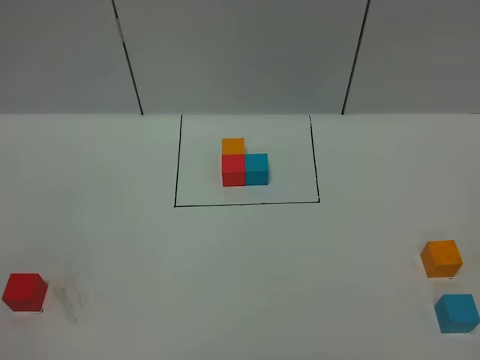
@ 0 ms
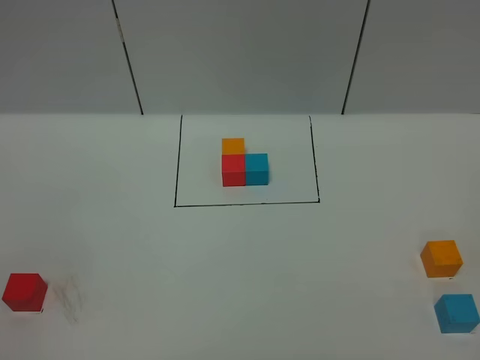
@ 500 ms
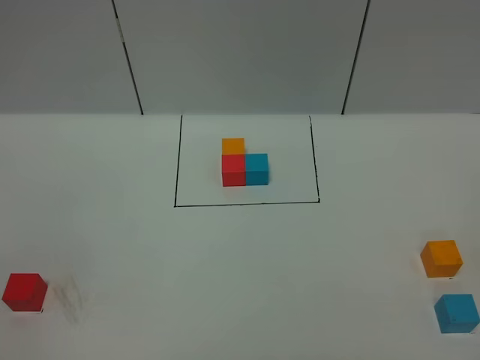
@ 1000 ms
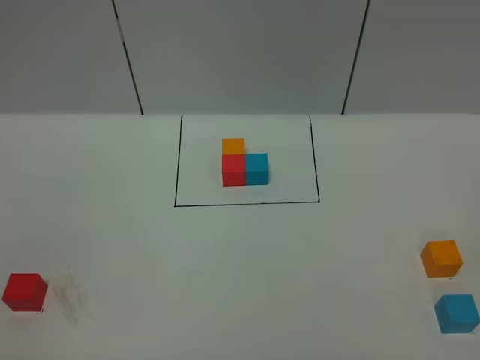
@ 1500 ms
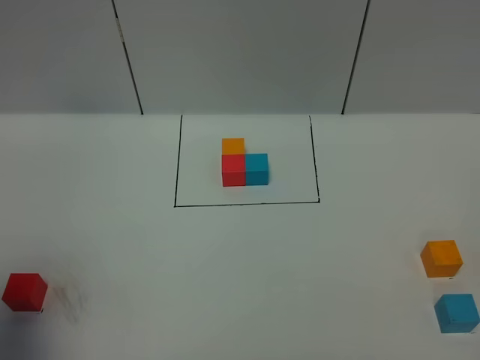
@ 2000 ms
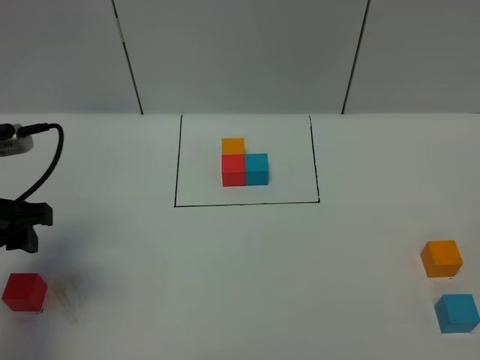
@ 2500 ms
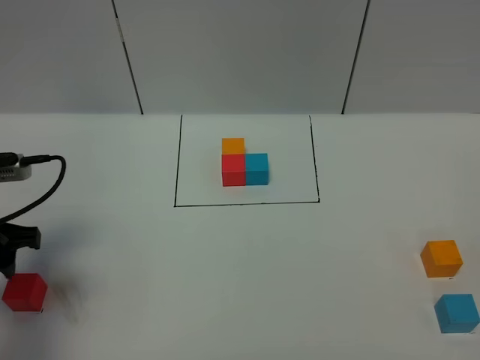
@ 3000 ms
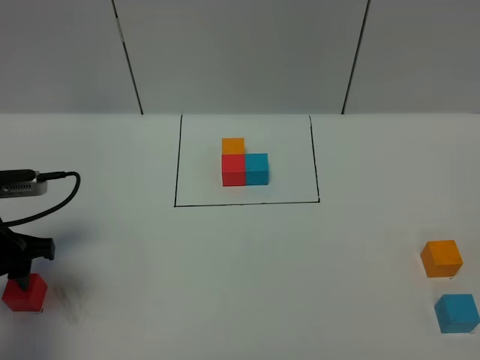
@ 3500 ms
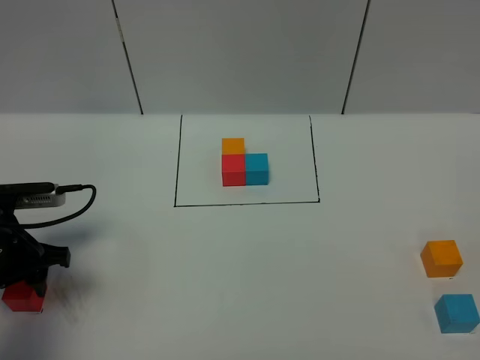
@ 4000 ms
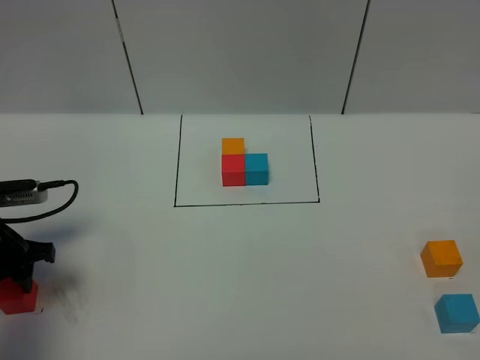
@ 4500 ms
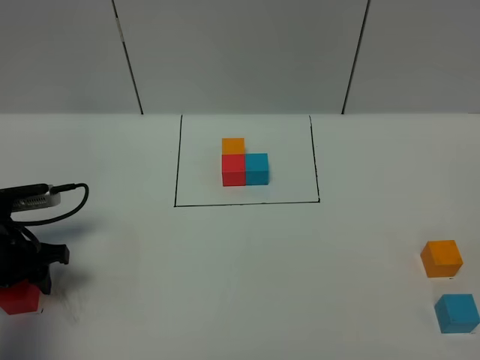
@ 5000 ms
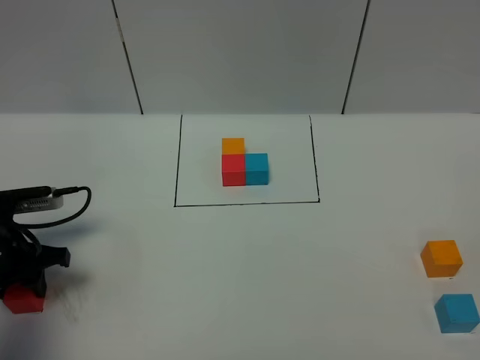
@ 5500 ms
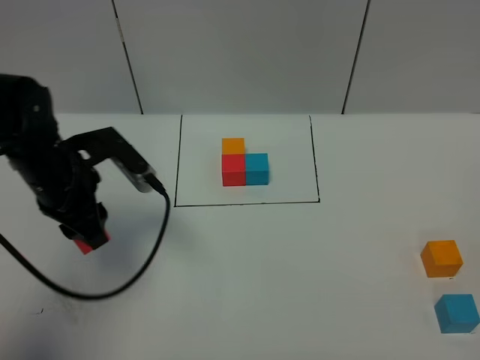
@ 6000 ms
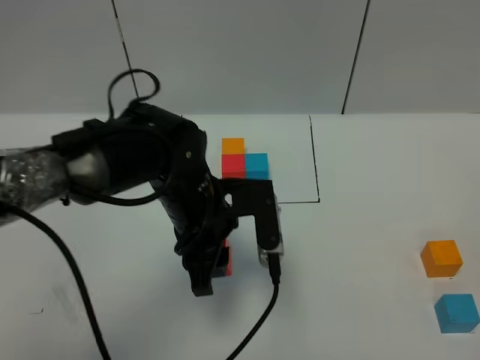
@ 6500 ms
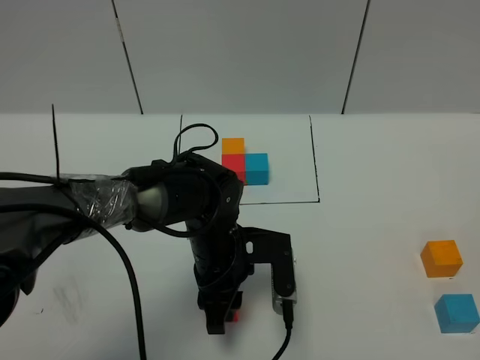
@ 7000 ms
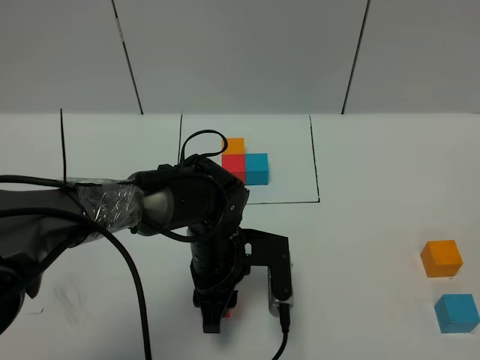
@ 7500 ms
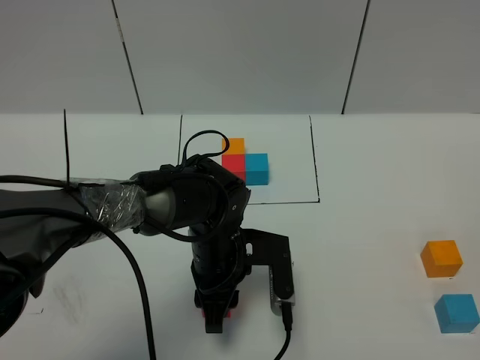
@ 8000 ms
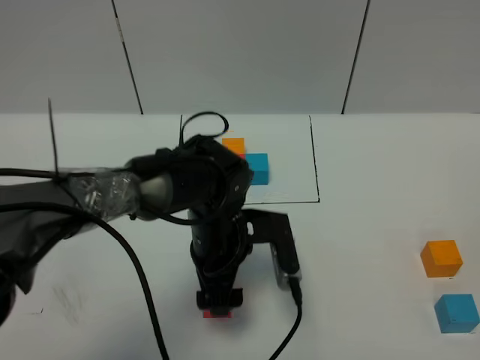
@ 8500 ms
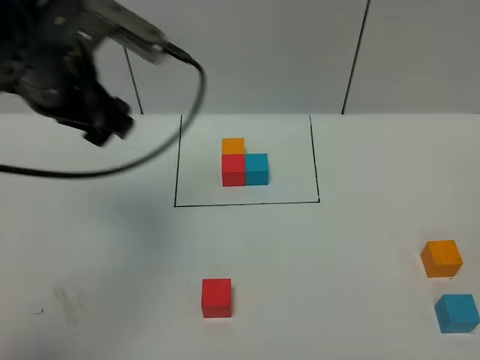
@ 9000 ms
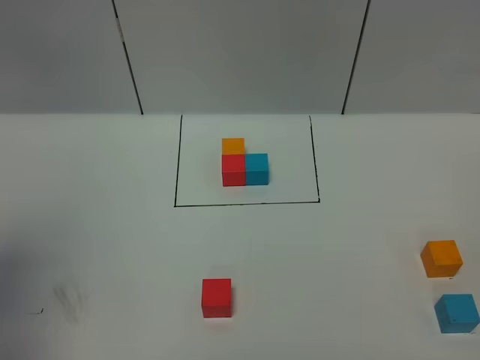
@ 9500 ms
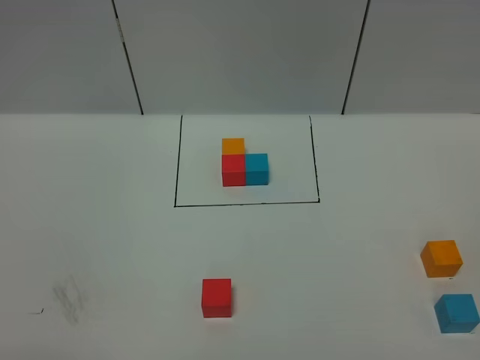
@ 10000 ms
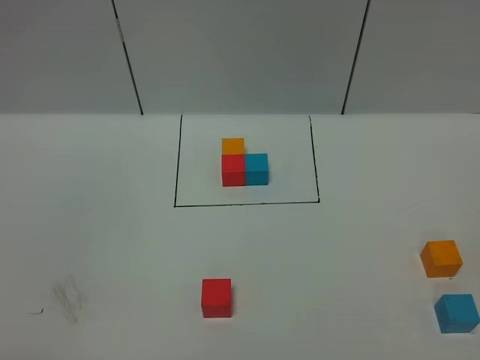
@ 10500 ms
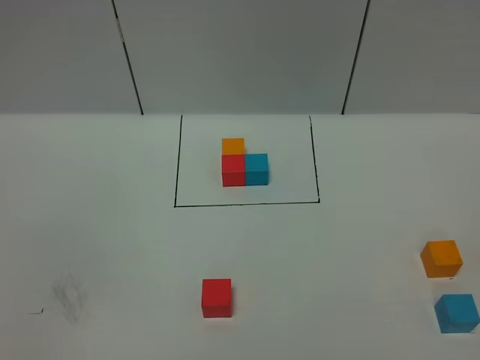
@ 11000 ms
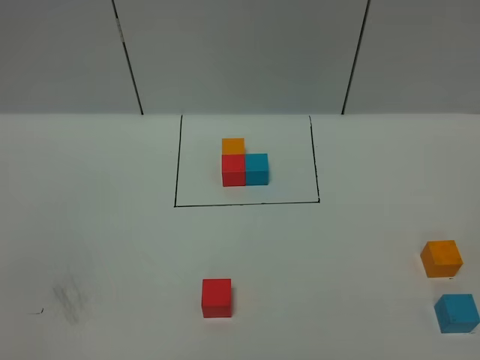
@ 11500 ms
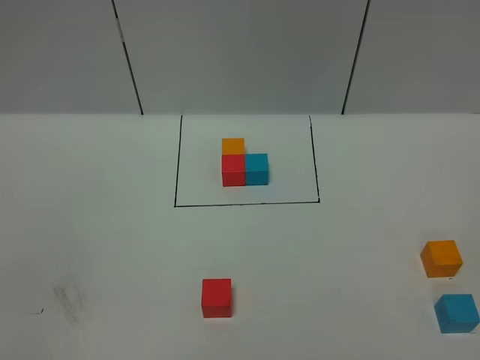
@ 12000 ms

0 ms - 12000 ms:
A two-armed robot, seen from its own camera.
Task of the whole recording: According to the building block template in front, assemble the scattered blocks together.
Step, 0 ms - 8000 ms: Put the red cube in the center of the table.
0 ms - 2000 ms: The left gripper shifts approximately 15 cm forward.
2000 ms - 4000 ms: The left gripper moves downward and forward, about 25 cm.
4000 ms - 6000 ms: The left gripper moves to the right, upward and forward, roughly 10 cm, and closes its fingers.
6000 ms - 8000 ms: The left gripper goes some 20 cm to the right and downward.
8000 ms - 10000 ms: The left gripper moves upward, backward and to the left, roughly 50 cm, and opens up.

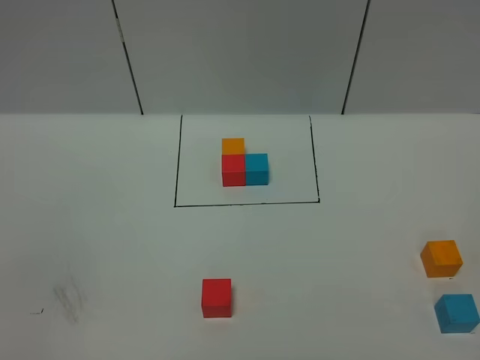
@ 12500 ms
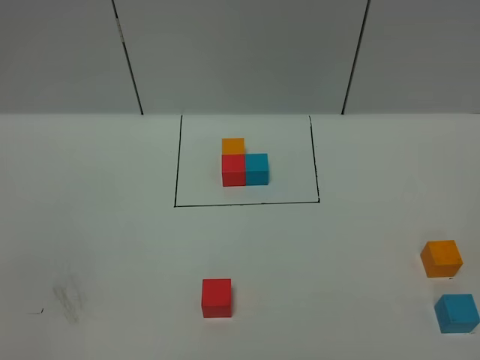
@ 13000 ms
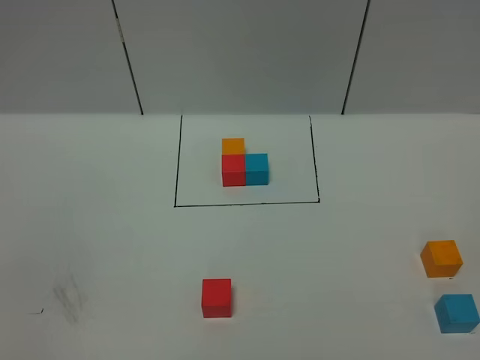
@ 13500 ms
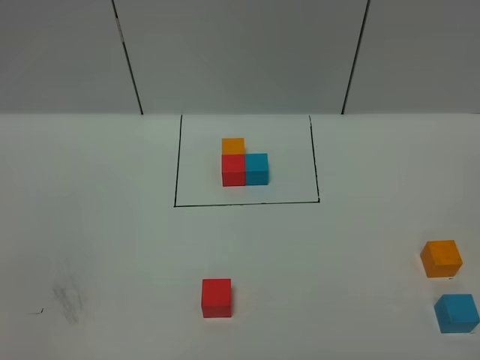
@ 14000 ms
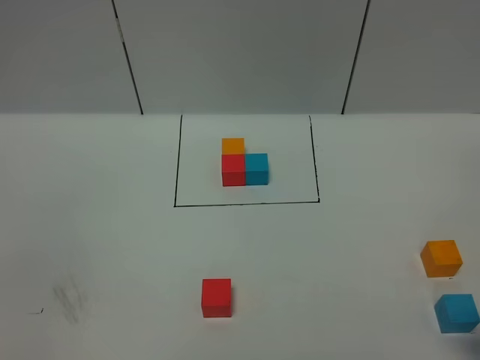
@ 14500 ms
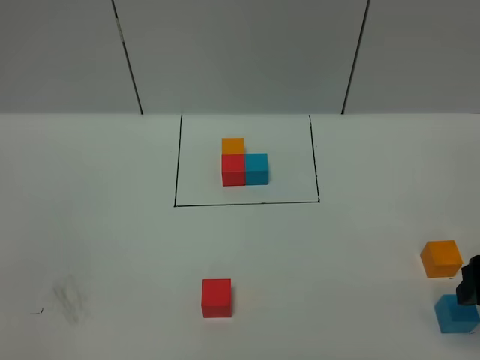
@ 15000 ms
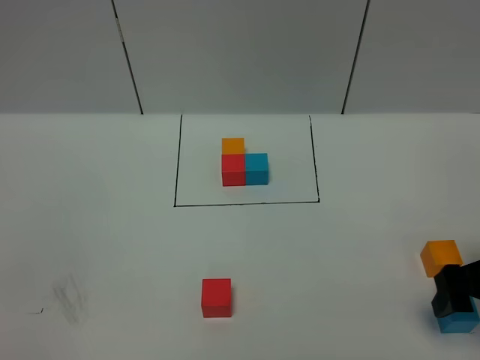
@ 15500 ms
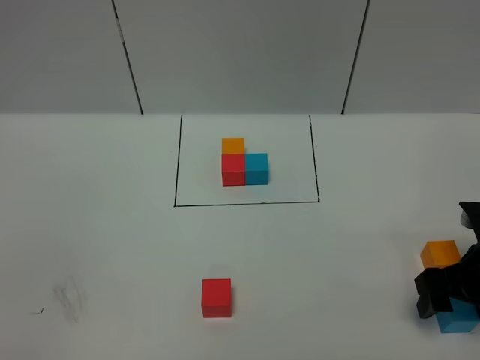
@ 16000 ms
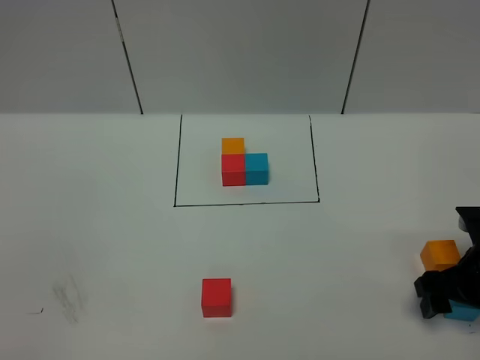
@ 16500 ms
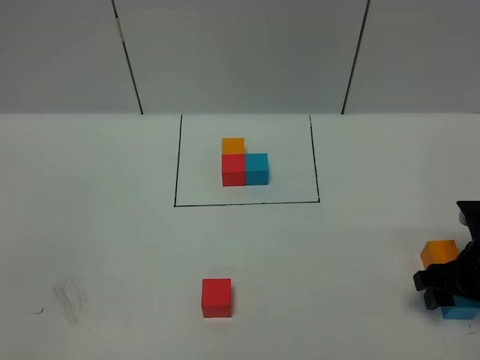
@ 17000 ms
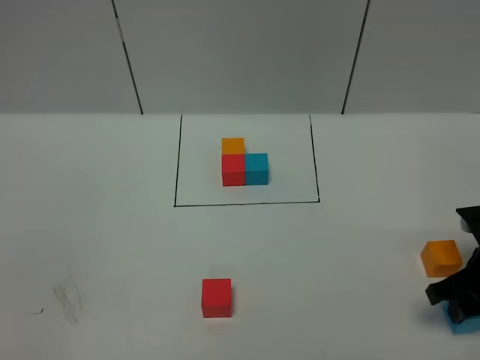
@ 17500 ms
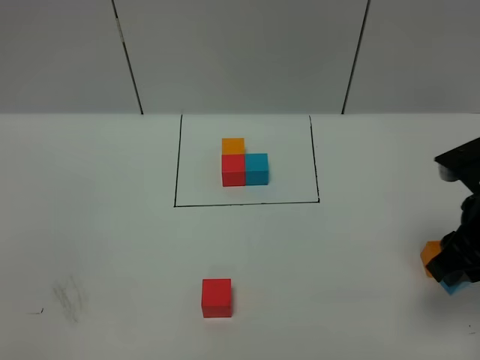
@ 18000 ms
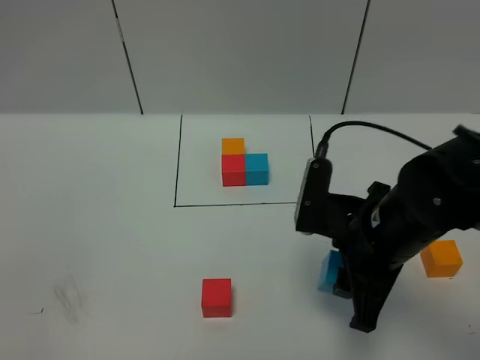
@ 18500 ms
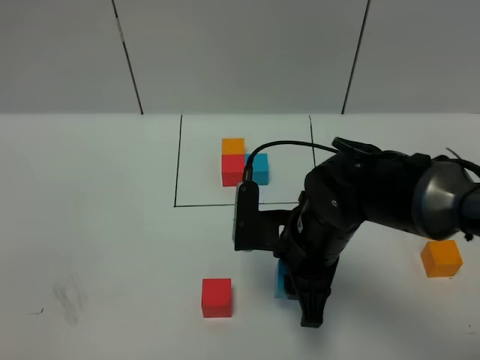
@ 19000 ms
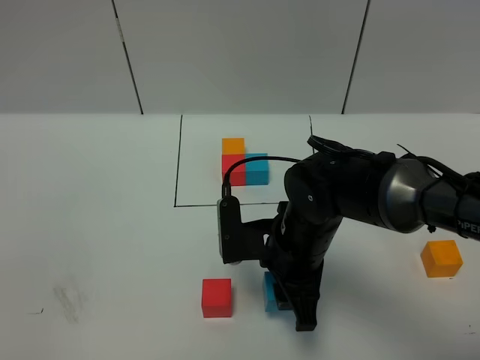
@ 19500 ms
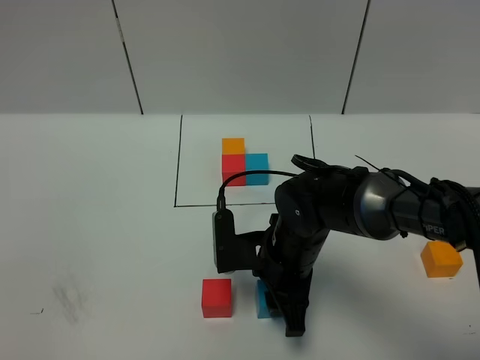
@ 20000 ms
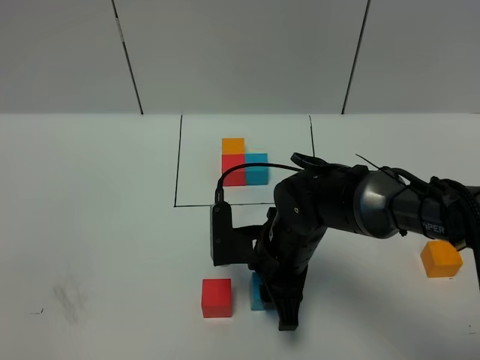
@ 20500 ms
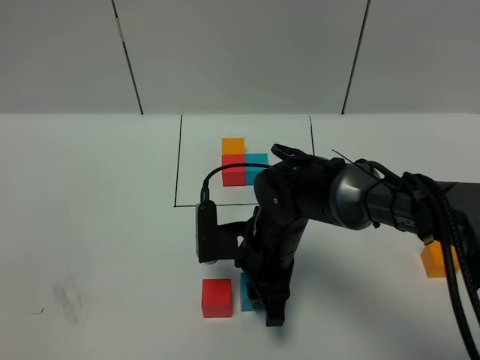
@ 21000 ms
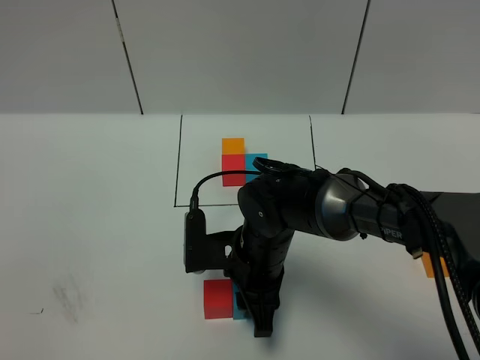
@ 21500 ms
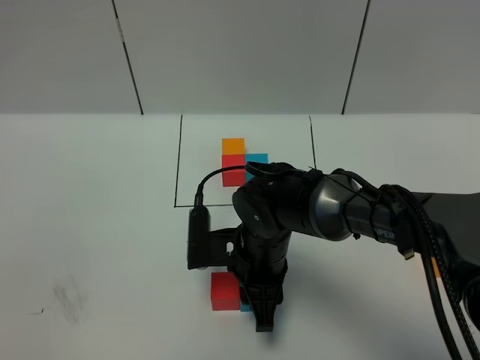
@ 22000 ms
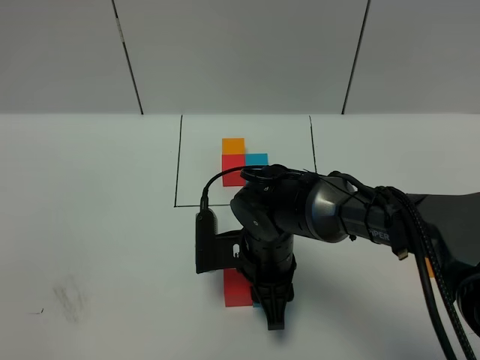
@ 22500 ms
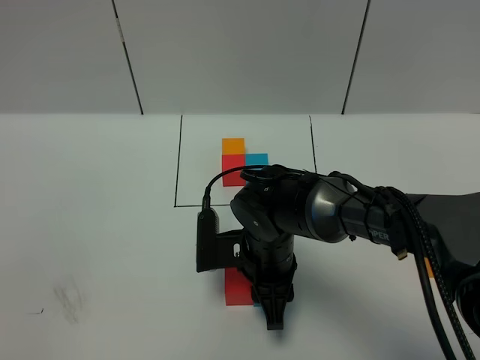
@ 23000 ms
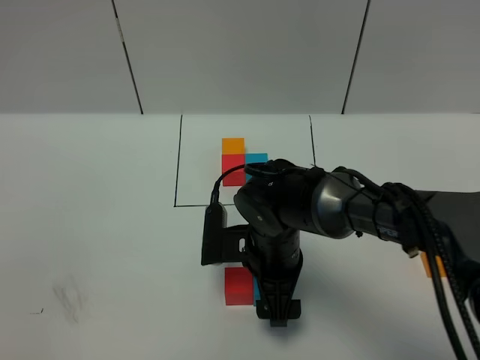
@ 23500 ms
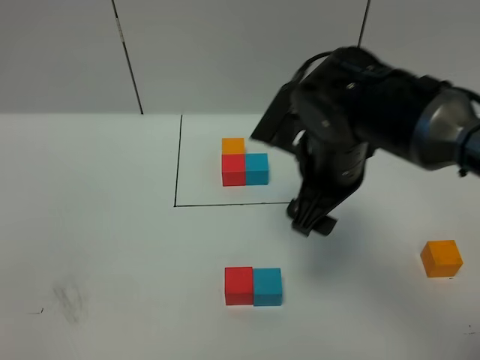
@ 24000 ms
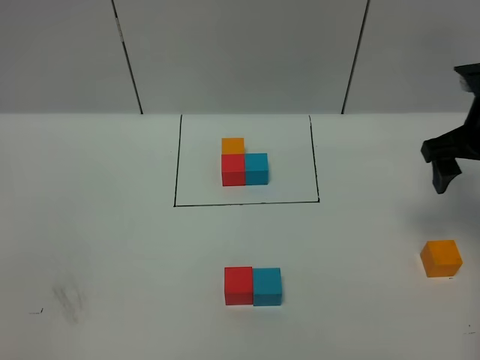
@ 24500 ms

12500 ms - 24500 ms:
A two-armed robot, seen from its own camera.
Task of the whole recording: According to the building block template in front, assemble the scattered blocks together.
Step, 12500 ms - 23500 ms: Put the blue cube on the right of the red cube.
14500 ms - 16500 ms: The right gripper heads forward and downward, covering some 15 cm.
16500 ms - 18500 ms: The right gripper is displaced to the left and upward by about 20 cm, and closes.
18500 ms - 20500 ms: The right gripper travels downward and to the left by about 15 cm.
20500 ms - 22500 ms: The grippers stay close to where they were, moving slightly.
22500 ms - 24500 ms: The right gripper moves to the right and upward, some 30 cm, and opens its fingers.

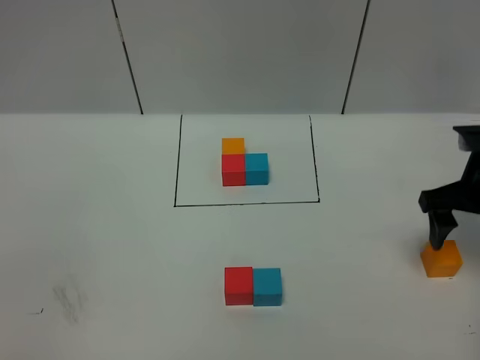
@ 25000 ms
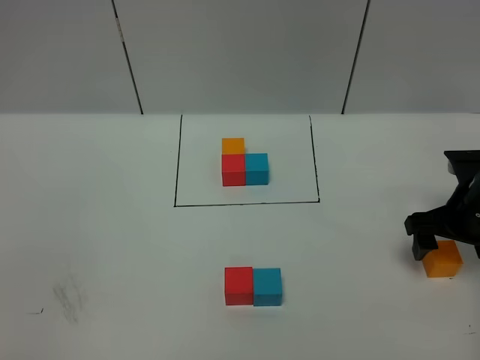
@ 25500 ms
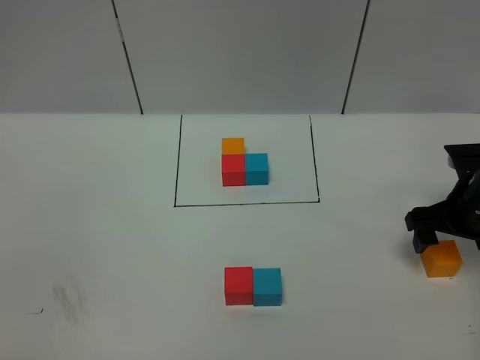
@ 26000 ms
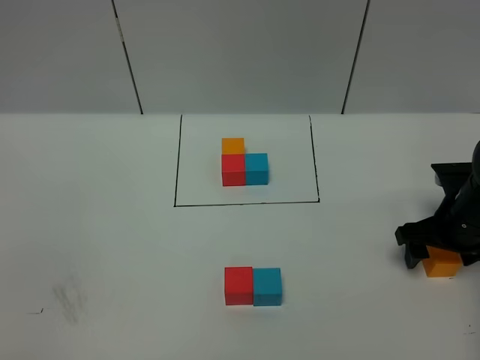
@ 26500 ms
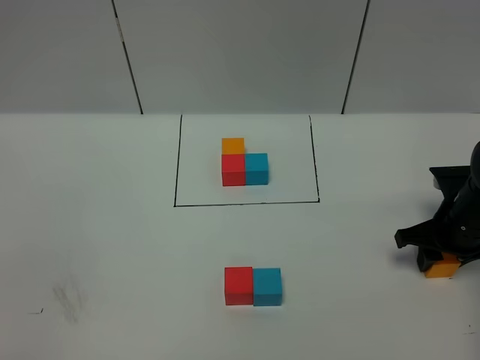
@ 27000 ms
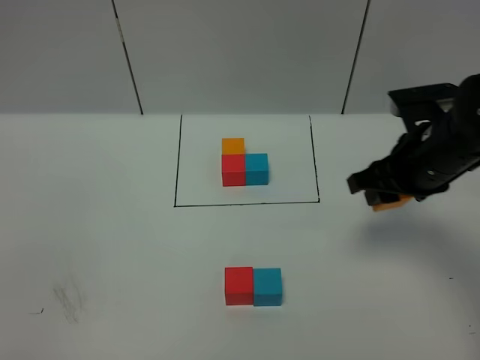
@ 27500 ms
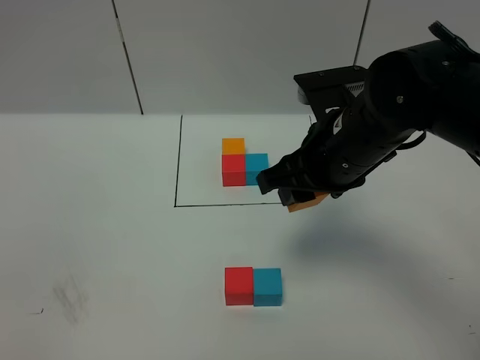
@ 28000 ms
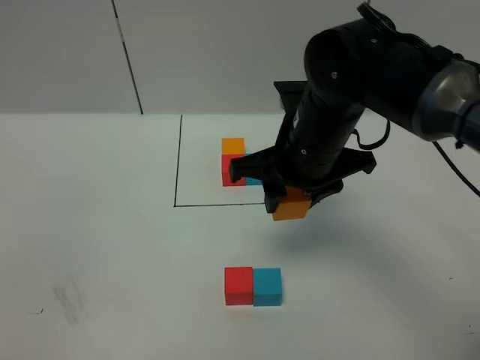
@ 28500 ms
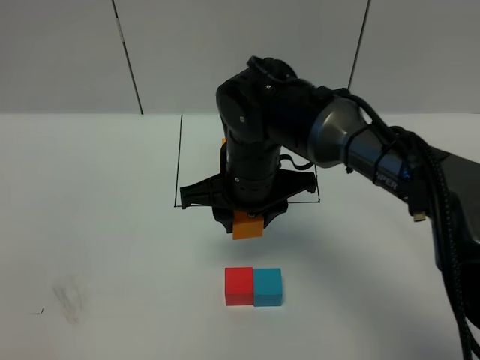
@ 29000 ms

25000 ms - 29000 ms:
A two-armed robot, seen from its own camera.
Task of the whole recording: According to the building block template in front, assemble the scattered blocks together.
25000 ms - 27000 ms: The right gripper shifts some 10 cm downward, and closes.
27000 ms - 29000 ms: The right gripper moves to the left, approximately 30 cm.
